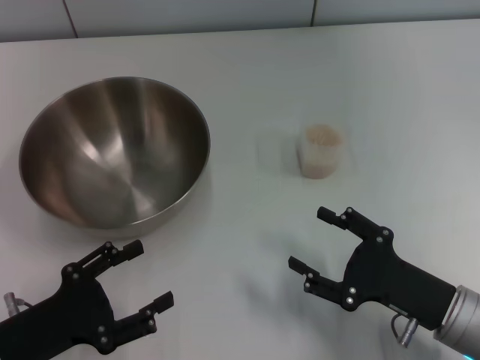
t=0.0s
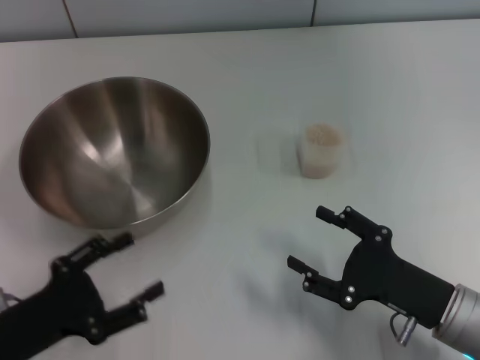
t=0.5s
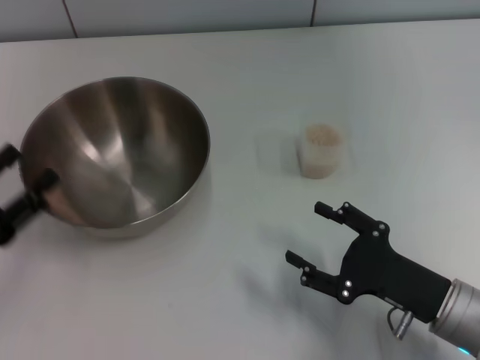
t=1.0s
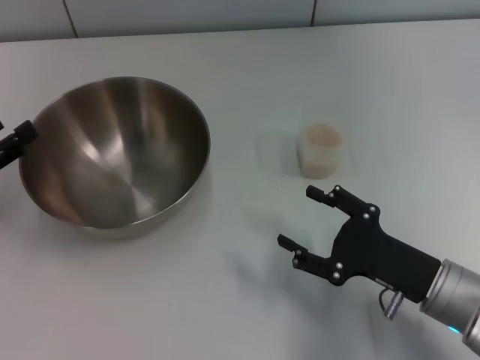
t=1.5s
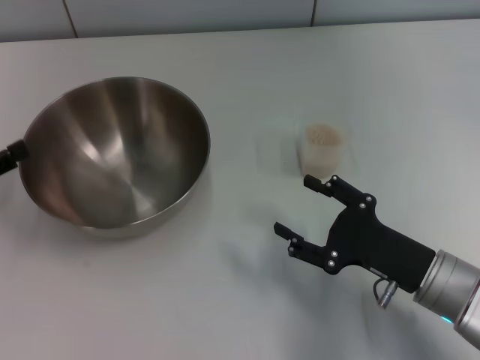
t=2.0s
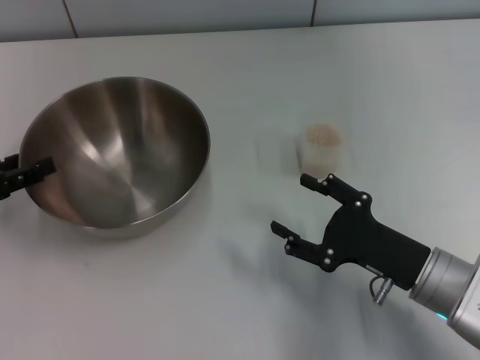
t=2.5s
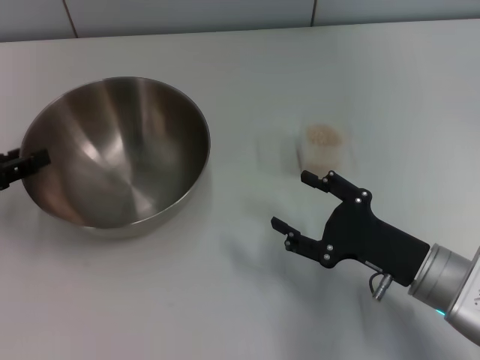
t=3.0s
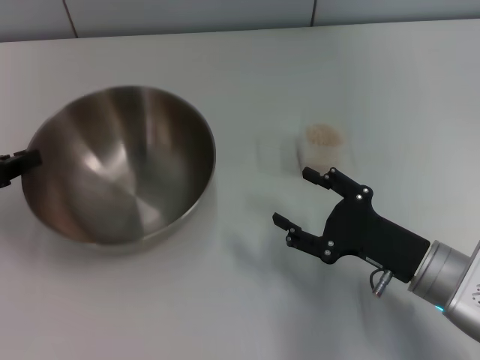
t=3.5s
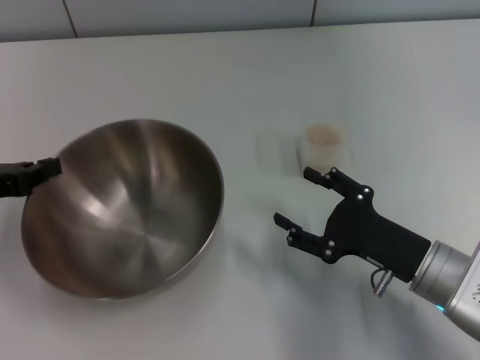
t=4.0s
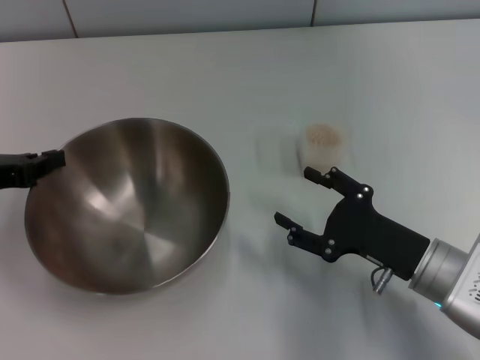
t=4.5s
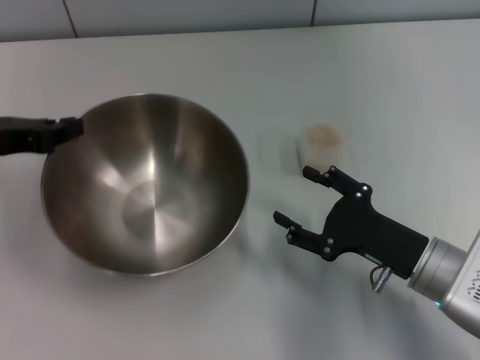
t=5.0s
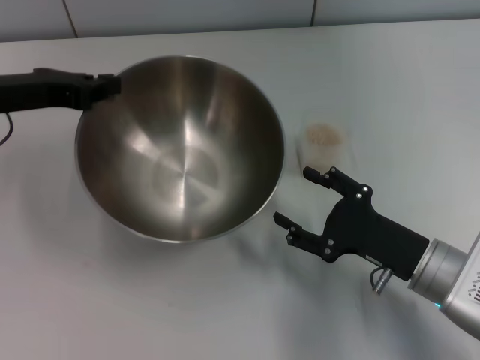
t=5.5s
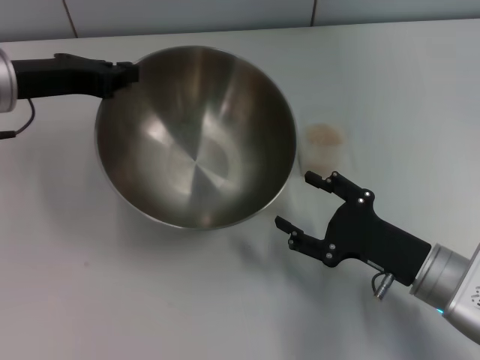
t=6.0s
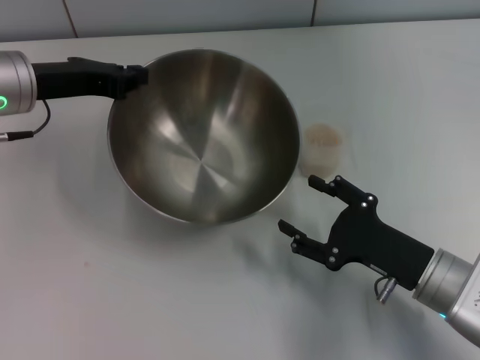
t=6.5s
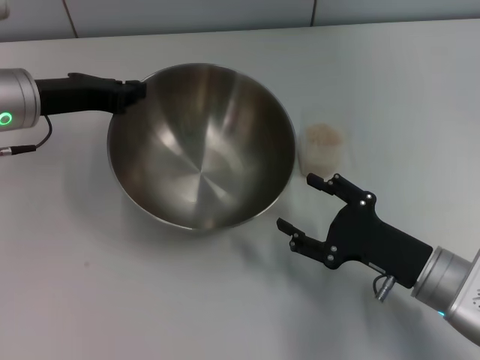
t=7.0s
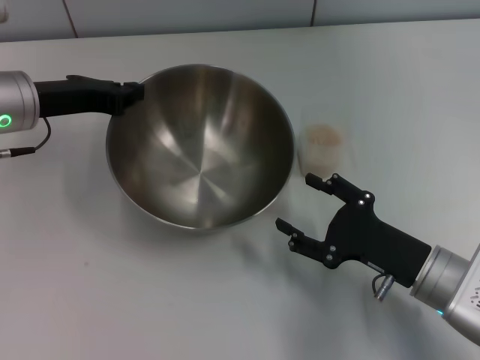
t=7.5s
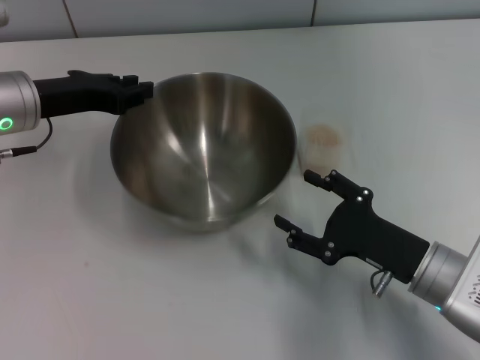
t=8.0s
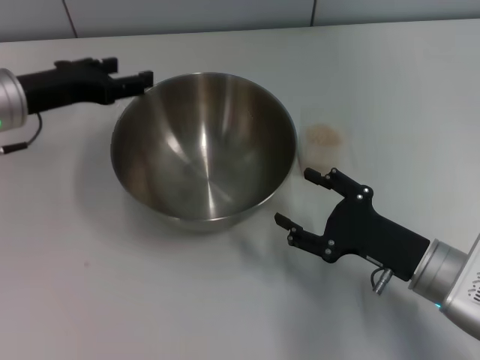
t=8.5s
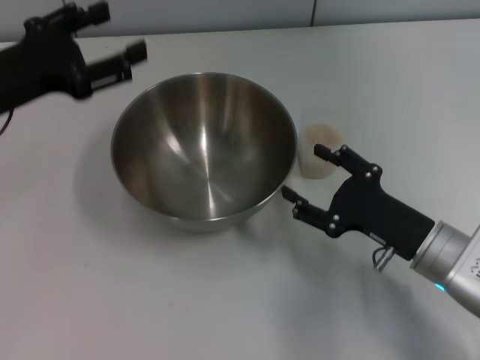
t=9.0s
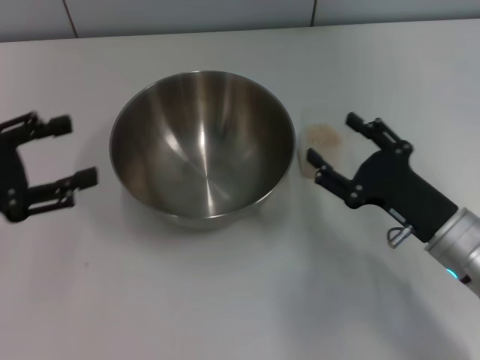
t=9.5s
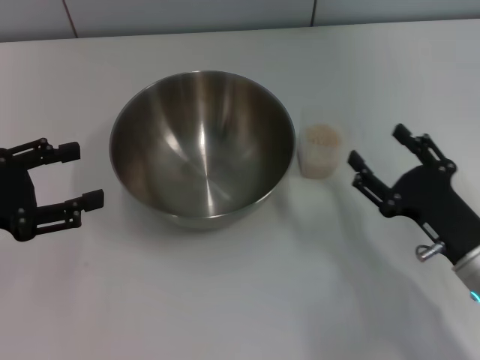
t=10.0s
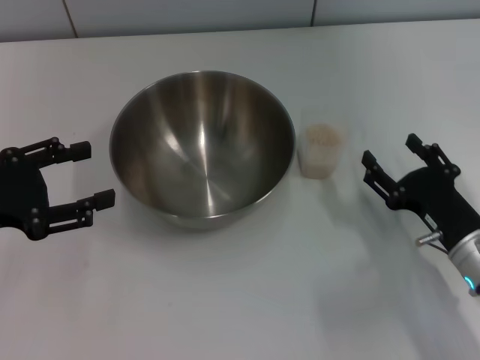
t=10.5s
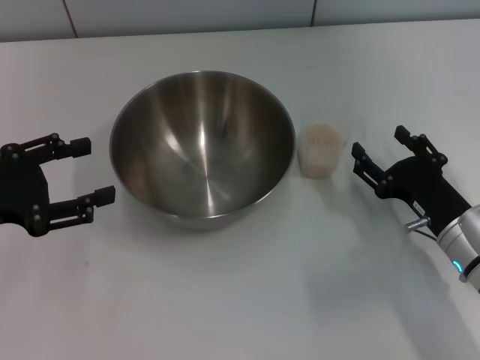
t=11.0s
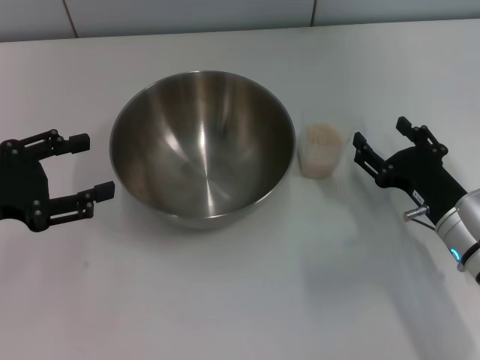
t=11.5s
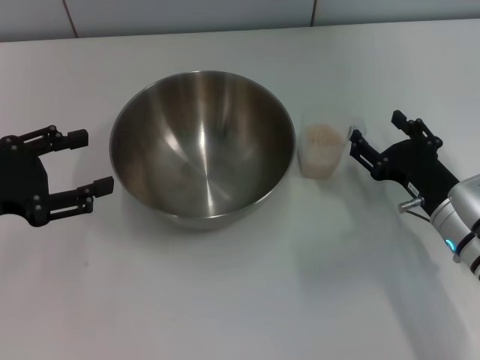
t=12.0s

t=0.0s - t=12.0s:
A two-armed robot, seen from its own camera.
Task of the whole recording: Place the bowl in the middle of the table with one hand and pour the rice from the grain cup into it with the other hand.
Step, t=0.0s - t=3.0s: Pick up the bowl with the left gripper.
Step, t=3.5s - t=8.0s: Place the bowl in the center of view with the left gripper.
t=0.0s - t=2.0s: The left gripper travels forward, to the left and upward by some 15 cm.
t=2.0s - t=4.0s: The left gripper closes its fingers.
t=4.0s - t=6.0s: The left gripper shifts some 15 cm to the right, forward and upward.
t=6.0s - t=8.0s: The grippers stay close to where they were, moving slightly.
t=8.0s - t=10.0s: The left gripper shifts approximately 15 cm backward and to the left, and opens.
t=10.0s - t=12.0s: The right gripper is displaced forward by roughly 5 cm.

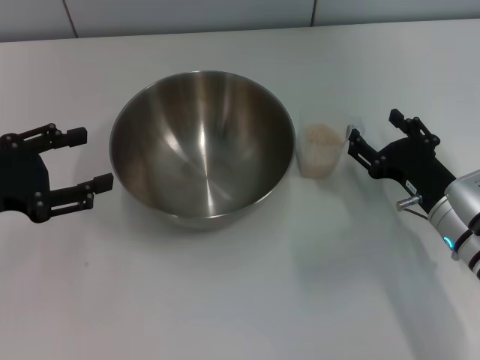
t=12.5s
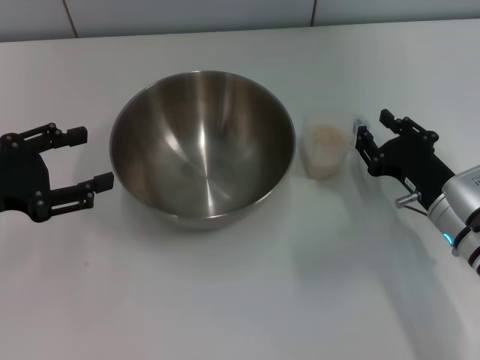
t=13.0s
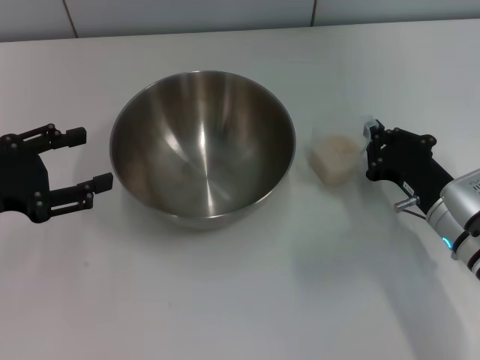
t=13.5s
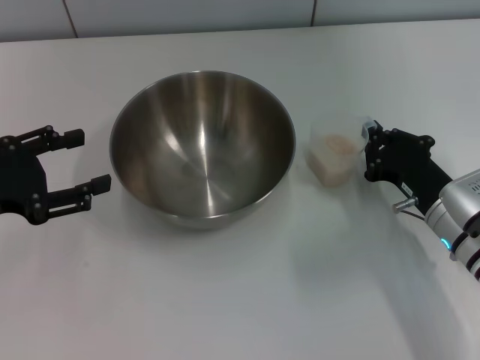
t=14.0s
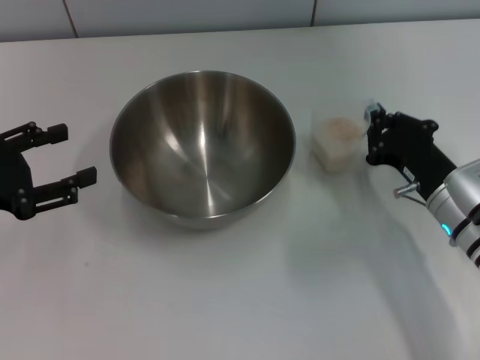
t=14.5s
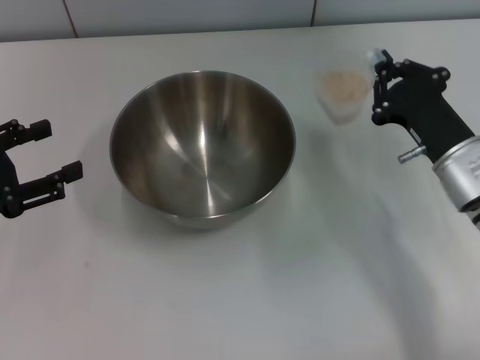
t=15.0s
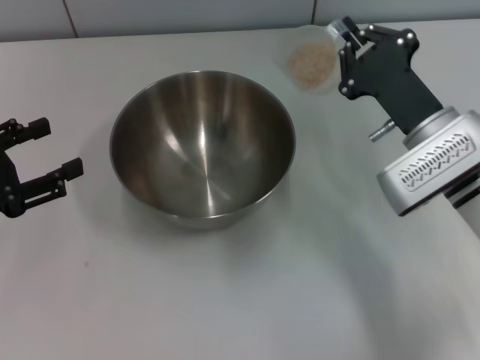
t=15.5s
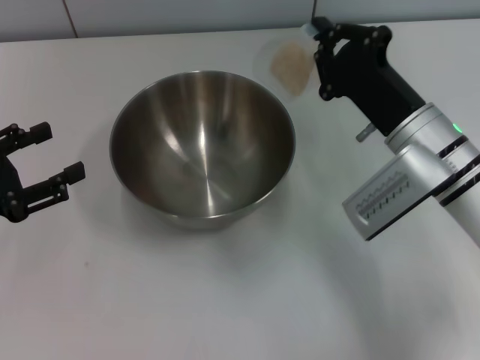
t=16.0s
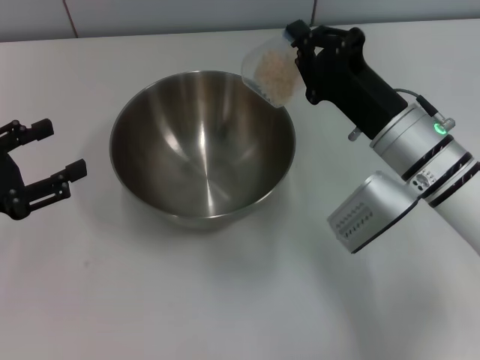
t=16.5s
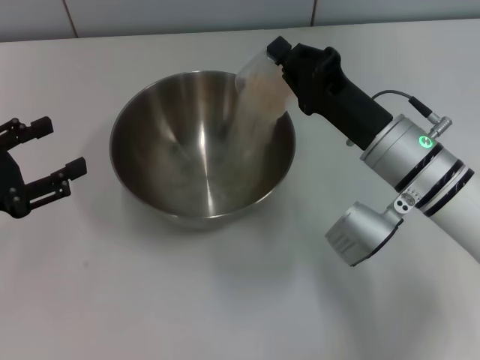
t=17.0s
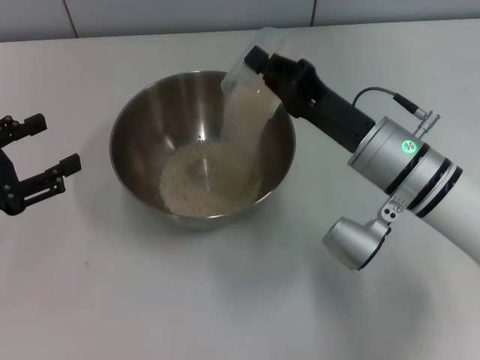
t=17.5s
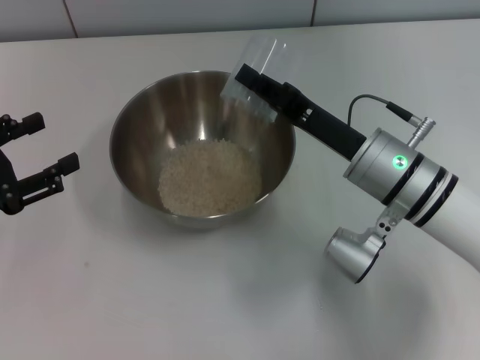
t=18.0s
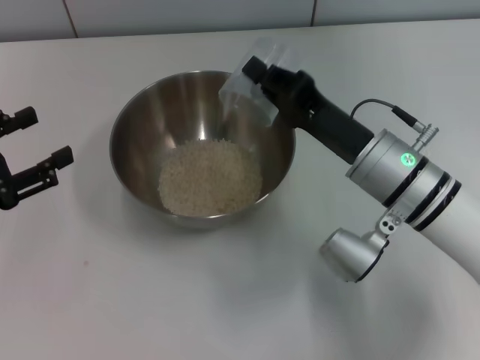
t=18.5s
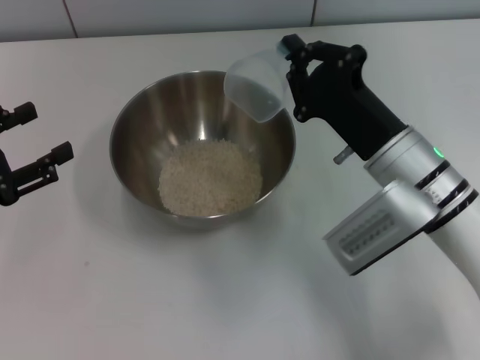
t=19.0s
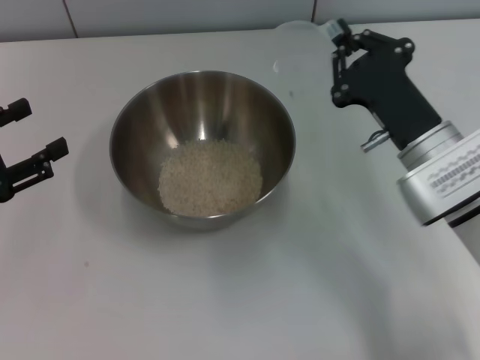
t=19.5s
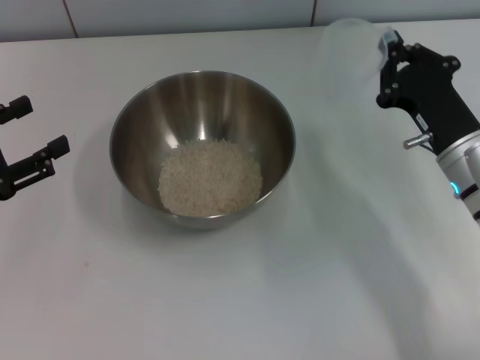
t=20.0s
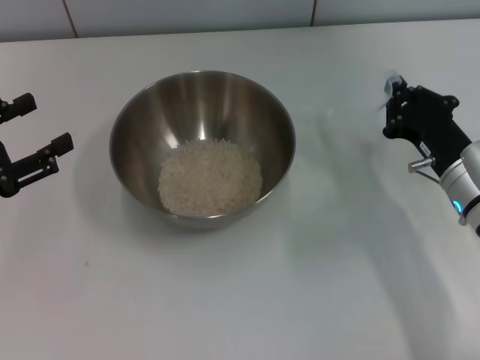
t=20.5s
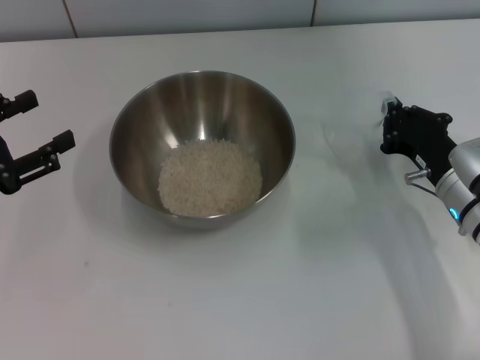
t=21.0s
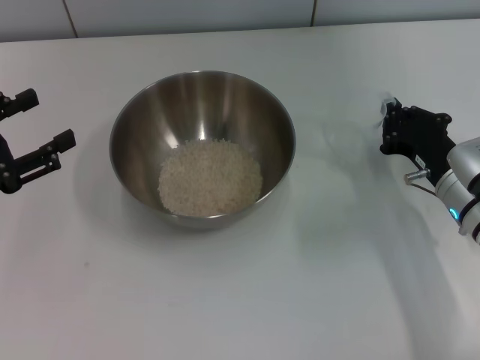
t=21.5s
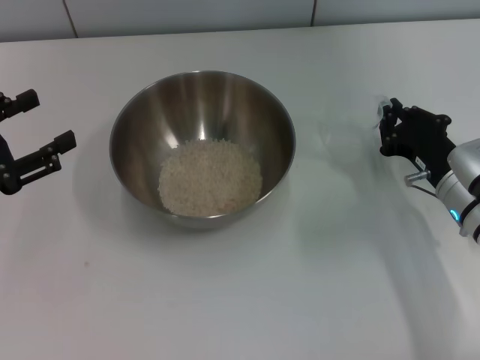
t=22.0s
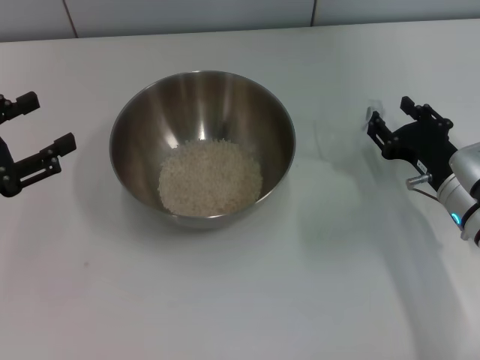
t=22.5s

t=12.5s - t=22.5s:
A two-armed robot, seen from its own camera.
Task of the whole recording: Place the bowl in the middle of the table with one hand and pour the rice from the grain cup into it with the other hand.
Step, t=12.5s - t=14.5s: Pick up the cup with rice in it with the right gripper.
Step, t=15.0s - t=19.0s: Pour the rice from the cup into the bowl with the right gripper.
t=12.5s - t=14.5s: The right gripper closes its fingers.
t=14.5s - t=16.5s: The right gripper goes roughly 10 cm to the left and upward.
t=18.5s - t=20.5s: The right gripper heads to the right, covering approximately 10 cm.
t=20.5s - t=22.5s: The right gripper opens its fingers.

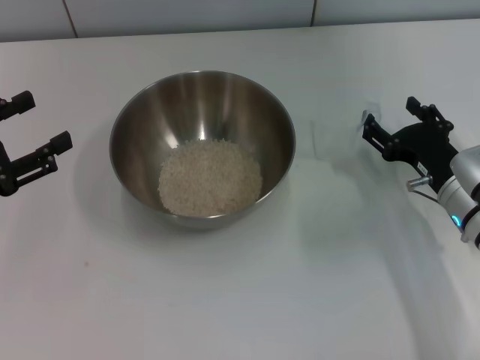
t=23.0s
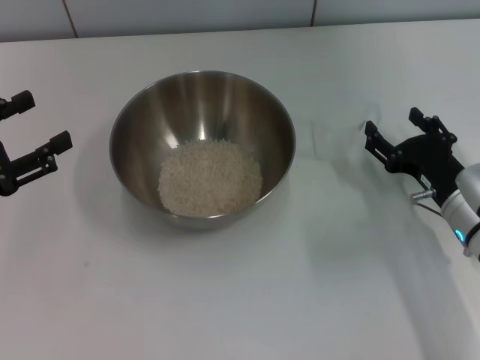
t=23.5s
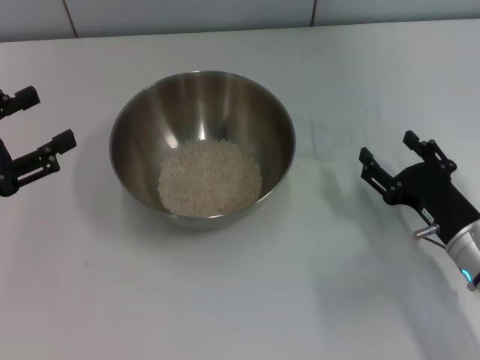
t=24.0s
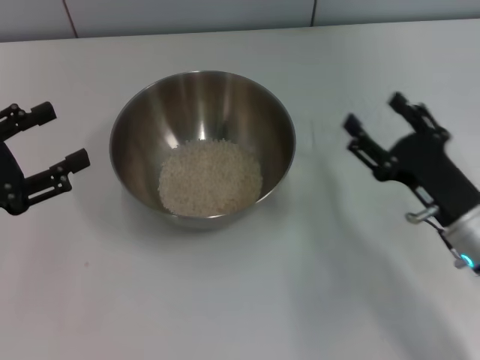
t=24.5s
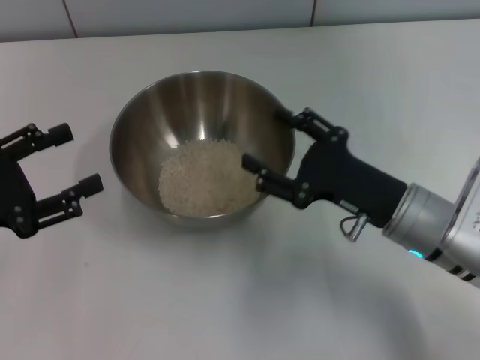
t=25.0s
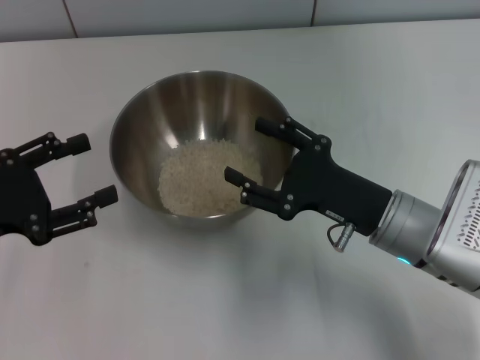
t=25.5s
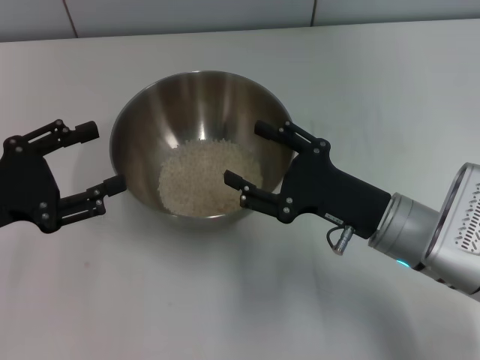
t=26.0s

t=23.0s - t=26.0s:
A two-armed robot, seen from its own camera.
Task of the whole recording: Place the bowl in the middle of the table with one hand and pour the rice from the grain cup into it with the other hand.
t=23.0s - t=24.5s: The right gripper goes approximately 5 cm backward.
t=24.5s - t=26.0s: The right gripper goes approximately 5 cm to the left.
